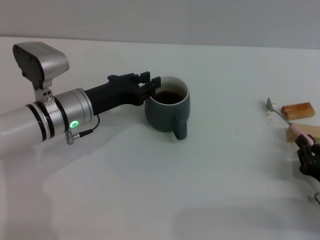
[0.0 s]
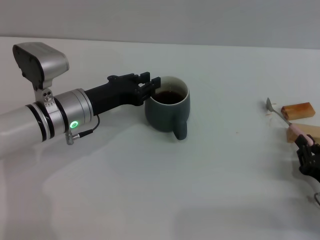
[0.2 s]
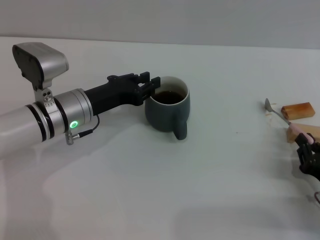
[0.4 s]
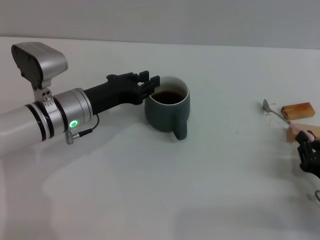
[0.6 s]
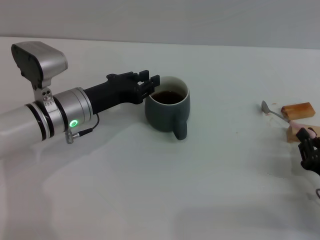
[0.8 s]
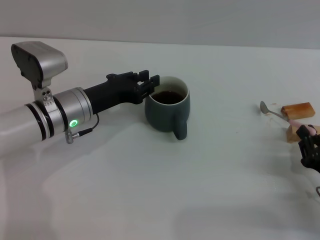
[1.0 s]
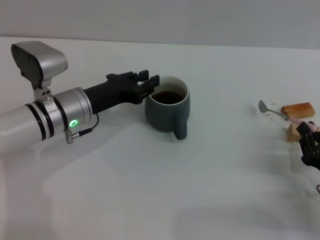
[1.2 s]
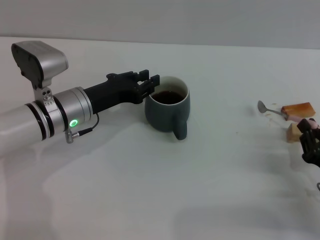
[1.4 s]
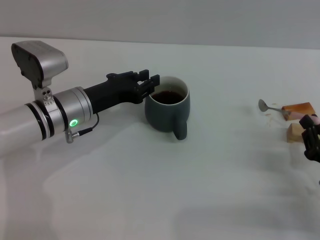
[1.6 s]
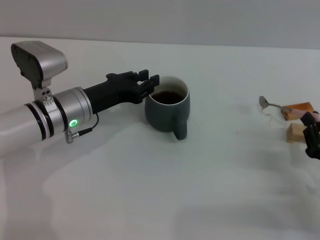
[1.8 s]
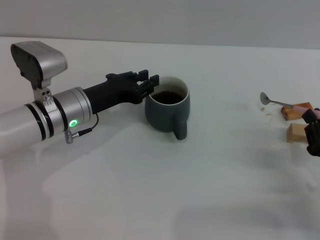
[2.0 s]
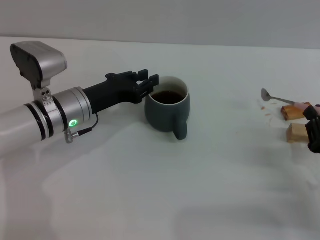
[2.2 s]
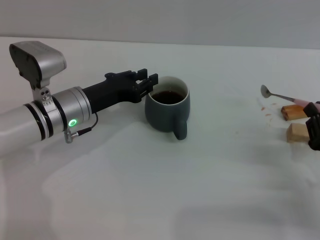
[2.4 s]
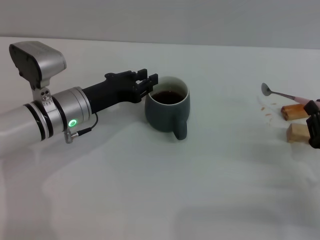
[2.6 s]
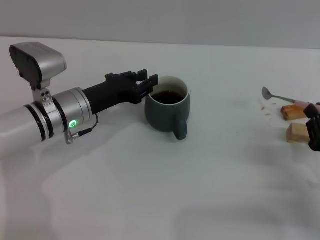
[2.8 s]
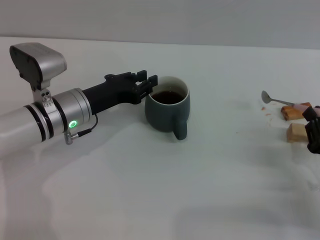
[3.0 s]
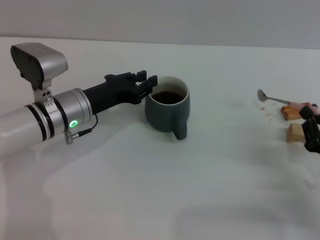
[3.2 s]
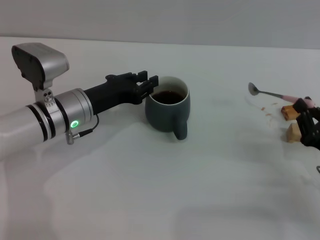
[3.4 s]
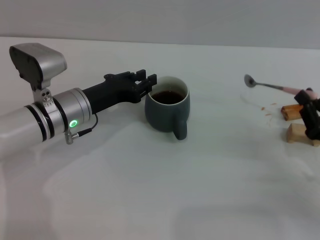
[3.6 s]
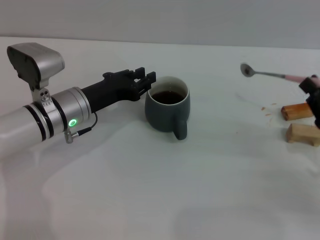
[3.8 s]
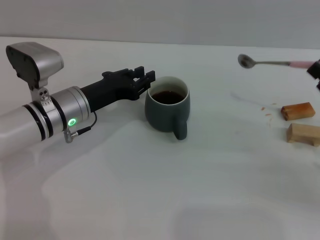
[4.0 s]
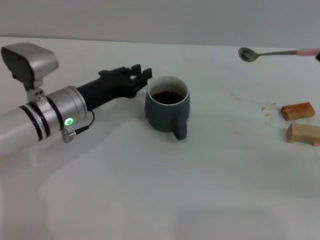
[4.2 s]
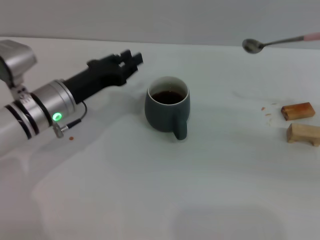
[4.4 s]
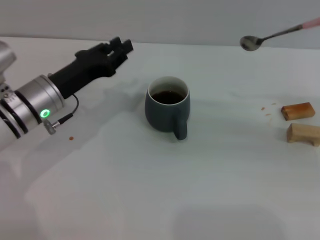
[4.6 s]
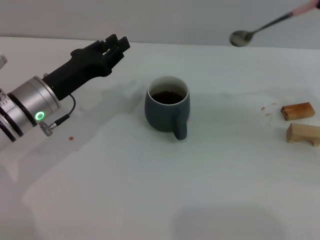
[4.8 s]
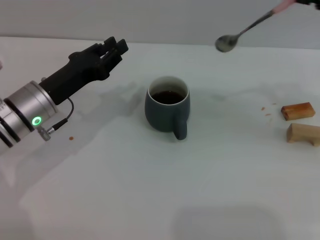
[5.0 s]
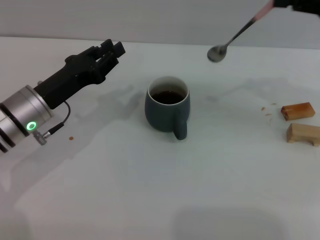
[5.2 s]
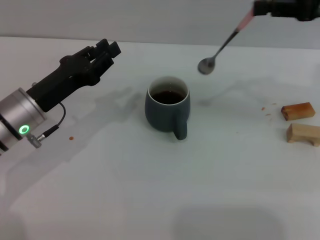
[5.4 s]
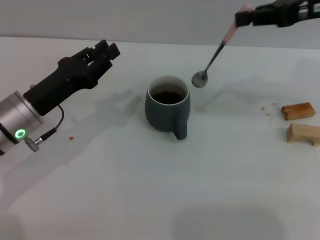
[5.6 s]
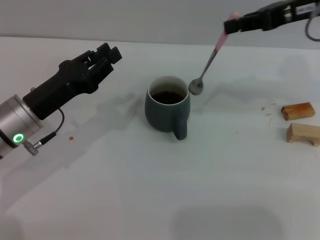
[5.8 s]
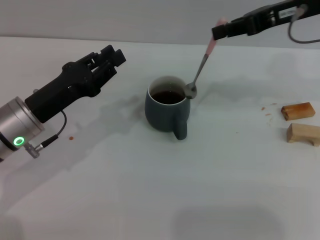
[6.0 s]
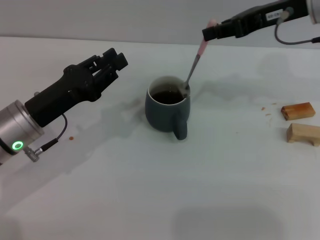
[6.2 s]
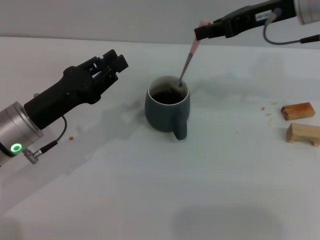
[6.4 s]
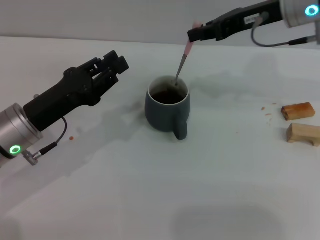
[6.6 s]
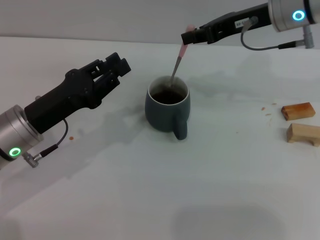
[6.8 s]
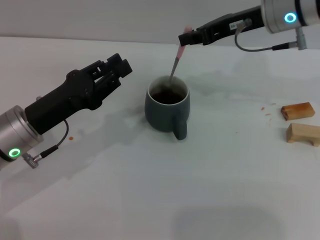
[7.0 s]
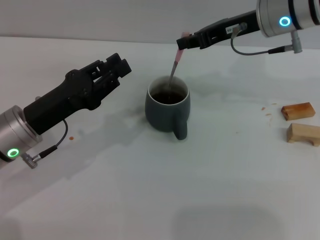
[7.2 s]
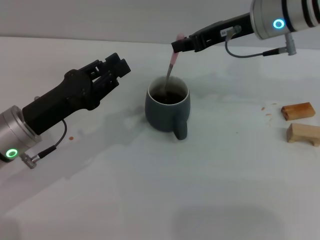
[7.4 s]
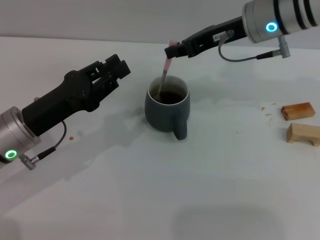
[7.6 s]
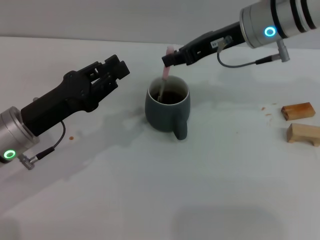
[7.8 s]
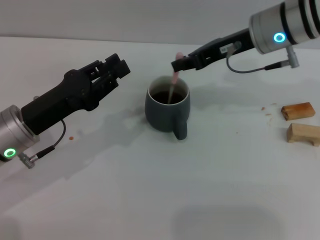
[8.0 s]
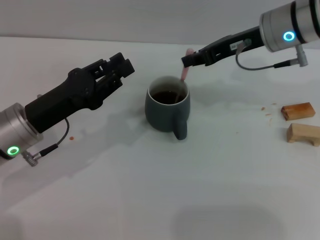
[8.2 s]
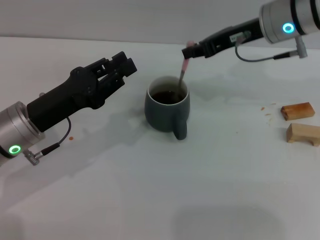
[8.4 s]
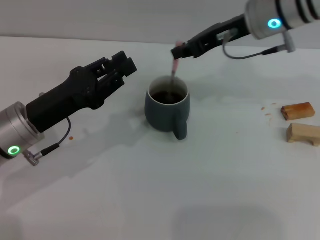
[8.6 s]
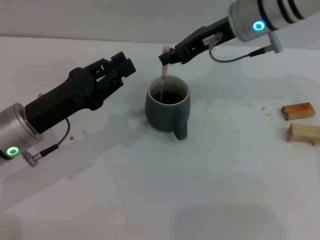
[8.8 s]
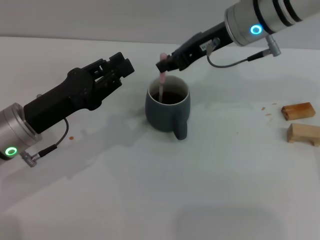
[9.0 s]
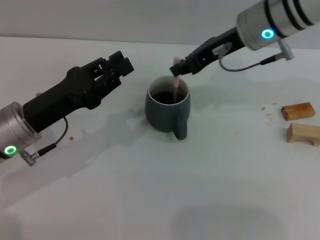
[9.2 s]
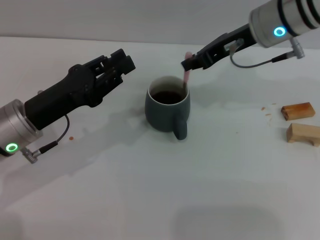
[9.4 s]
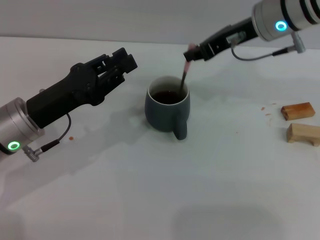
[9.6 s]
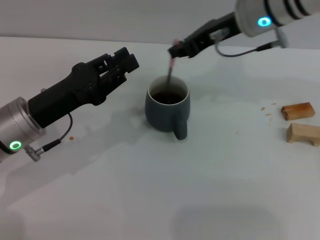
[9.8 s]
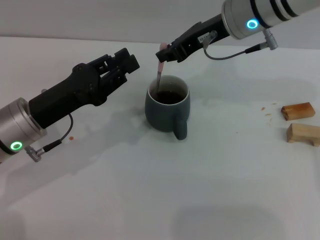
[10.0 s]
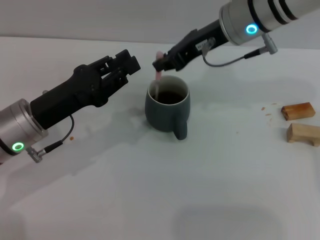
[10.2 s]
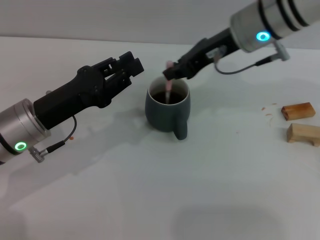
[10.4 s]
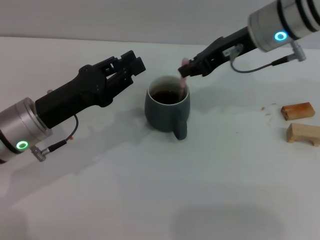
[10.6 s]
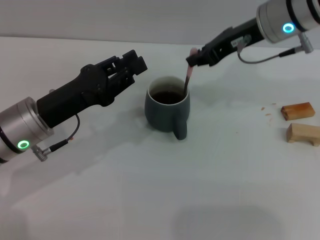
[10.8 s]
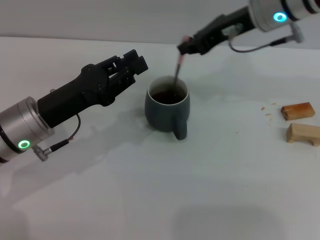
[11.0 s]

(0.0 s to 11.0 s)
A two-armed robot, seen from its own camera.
Task of the whole recording: Move the grey cup to the center, lift the pink spoon, stir it three times in the cup, and put the spoon into the cup.
Step, 0.0 s - 3.6 s: Pick up the spoon with the right gripper.
0.0 s - 3.2 s: The grippers move only a little.
3.2 s - 4.8 s: The right gripper heads upward and forward, covering approximately 25 cm.
4.8 s - 6.2 s: The right gripper goes roughly 15 cm to the left and forward.
6.2 s - 7.8 s: The right gripper moves to the left, approximately 5 cm.
7.8 s - 11.0 s: The grippers stay close to where they were, moving slightly.

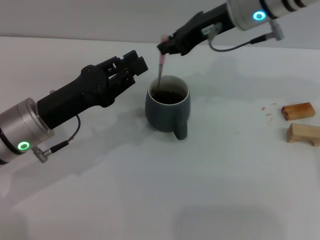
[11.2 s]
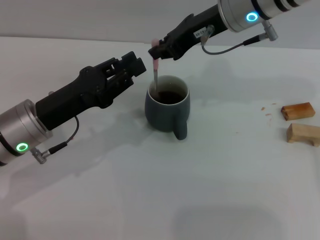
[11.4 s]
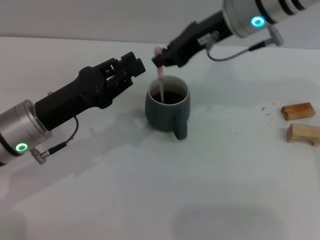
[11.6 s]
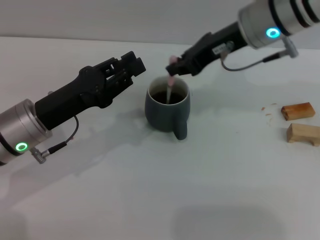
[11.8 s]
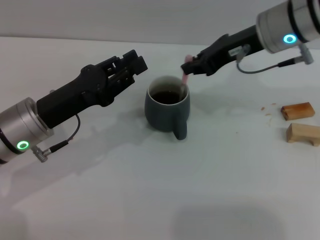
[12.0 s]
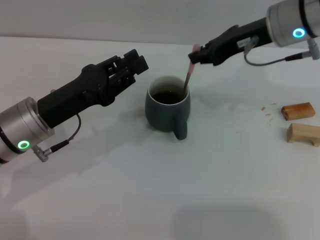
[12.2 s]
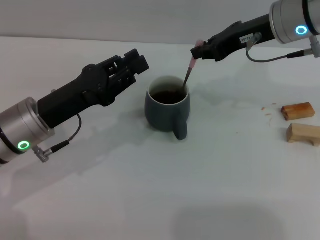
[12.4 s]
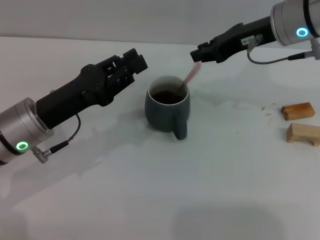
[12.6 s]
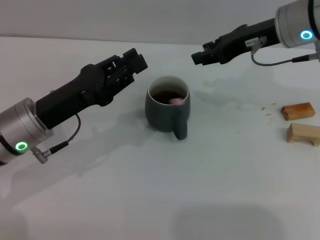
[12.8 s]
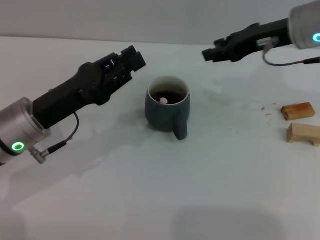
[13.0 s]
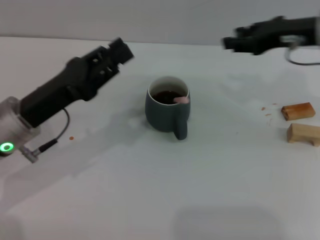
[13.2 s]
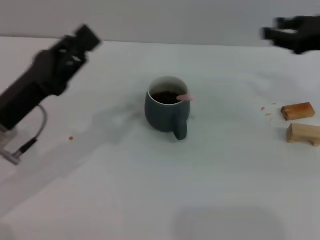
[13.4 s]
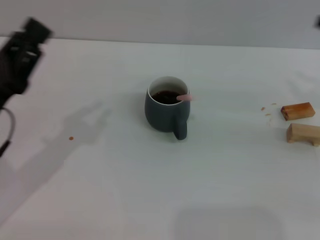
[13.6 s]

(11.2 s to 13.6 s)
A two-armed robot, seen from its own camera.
Task of the whole recording: Move the grey cup to the center, lift the pink spoon, stir it three times in the cup, and put the spoon into the cup.
11.2 s - 12.4 s: The right gripper goes approximately 5 cm to the right.
12.4 s - 13.6 s: The right gripper goes approximately 20 cm to the right and backward, and opens. The left gripper heads to the left, covering roughly 5 cm.

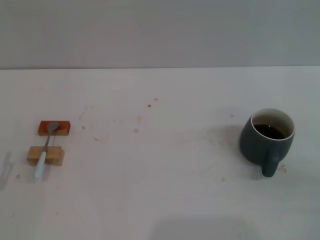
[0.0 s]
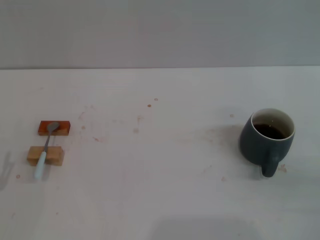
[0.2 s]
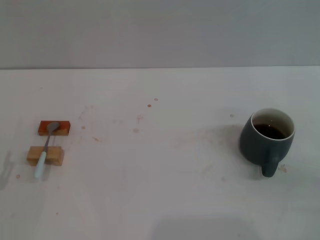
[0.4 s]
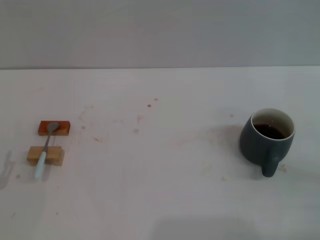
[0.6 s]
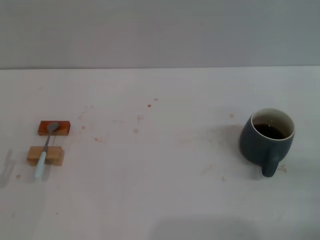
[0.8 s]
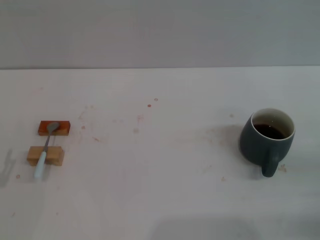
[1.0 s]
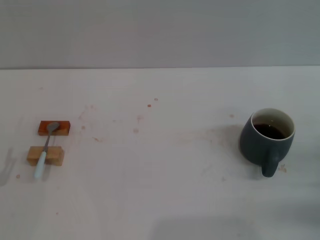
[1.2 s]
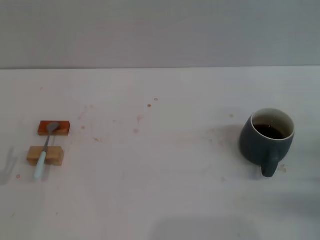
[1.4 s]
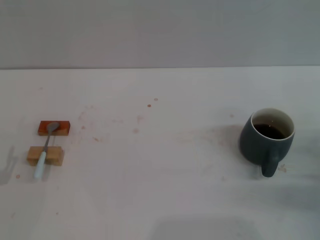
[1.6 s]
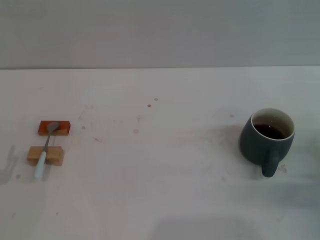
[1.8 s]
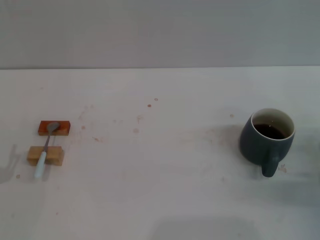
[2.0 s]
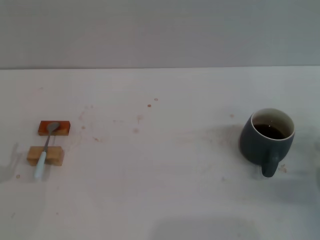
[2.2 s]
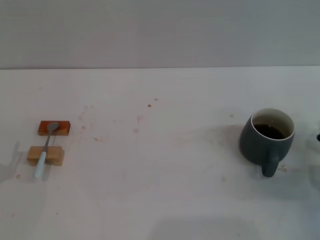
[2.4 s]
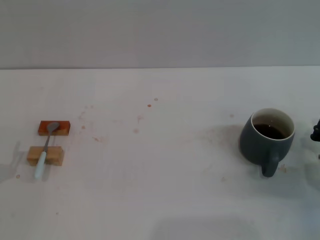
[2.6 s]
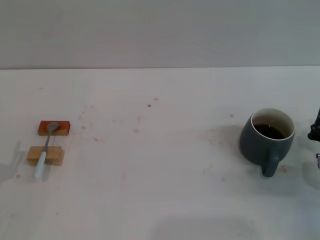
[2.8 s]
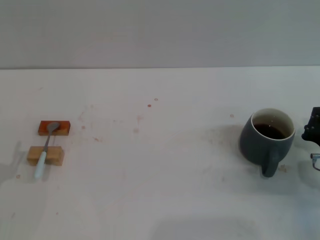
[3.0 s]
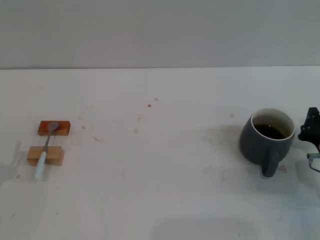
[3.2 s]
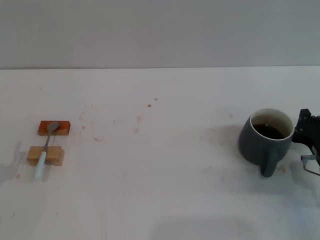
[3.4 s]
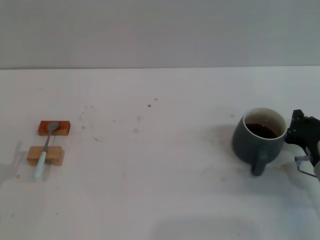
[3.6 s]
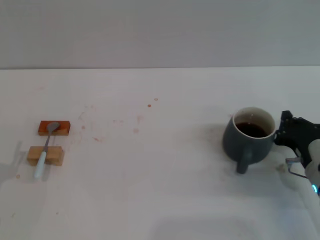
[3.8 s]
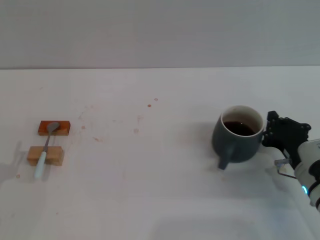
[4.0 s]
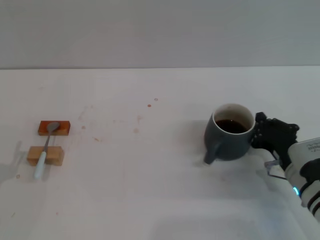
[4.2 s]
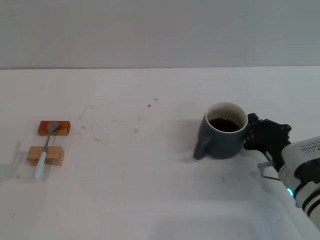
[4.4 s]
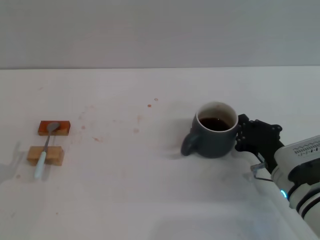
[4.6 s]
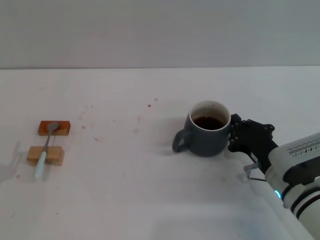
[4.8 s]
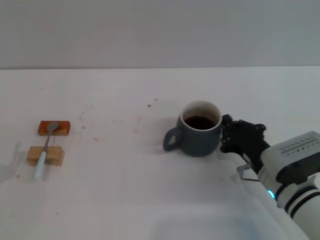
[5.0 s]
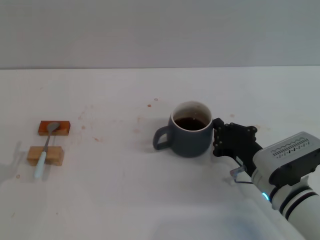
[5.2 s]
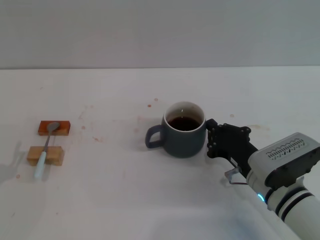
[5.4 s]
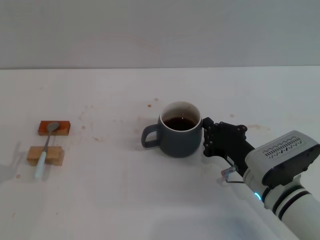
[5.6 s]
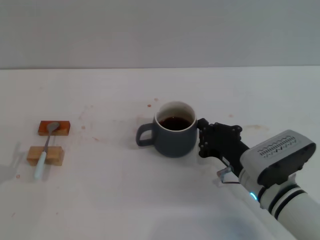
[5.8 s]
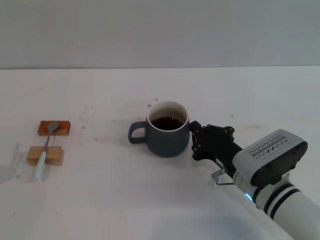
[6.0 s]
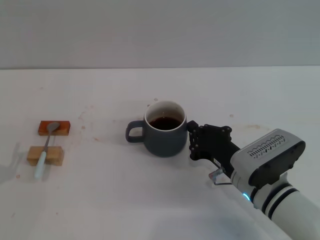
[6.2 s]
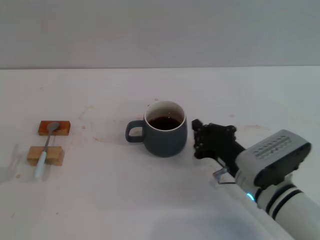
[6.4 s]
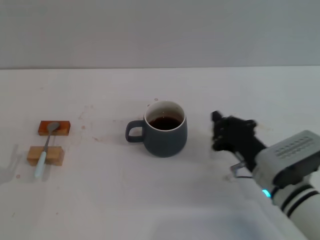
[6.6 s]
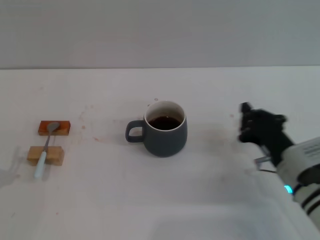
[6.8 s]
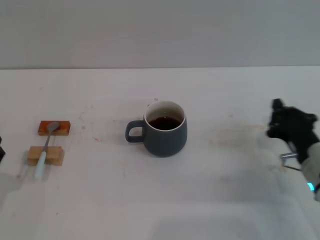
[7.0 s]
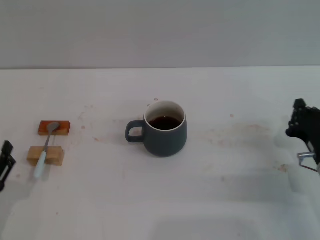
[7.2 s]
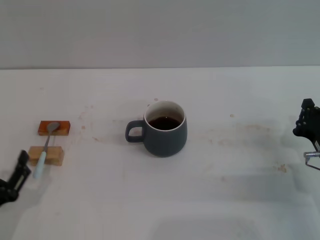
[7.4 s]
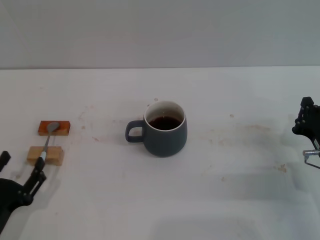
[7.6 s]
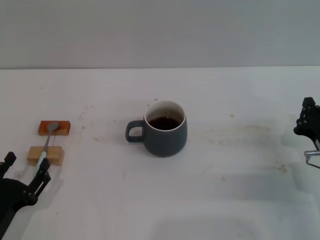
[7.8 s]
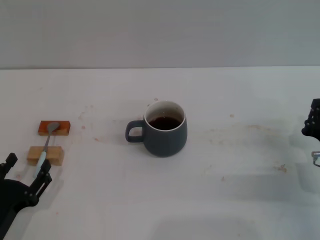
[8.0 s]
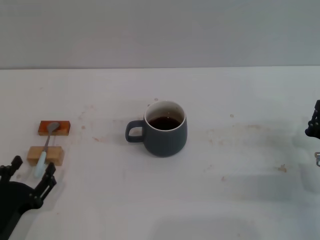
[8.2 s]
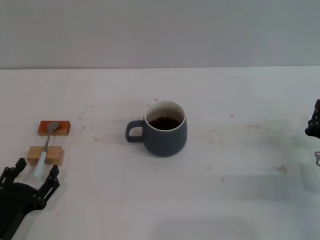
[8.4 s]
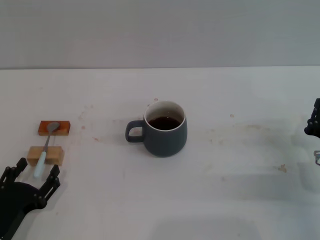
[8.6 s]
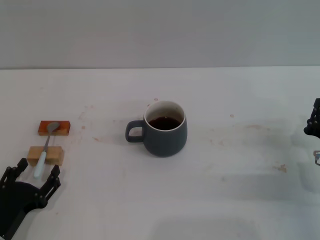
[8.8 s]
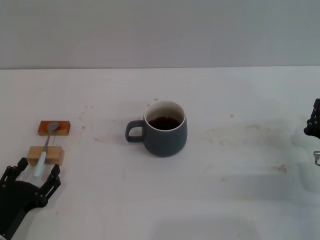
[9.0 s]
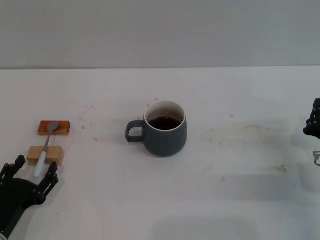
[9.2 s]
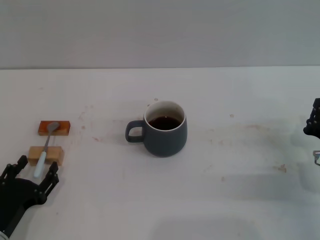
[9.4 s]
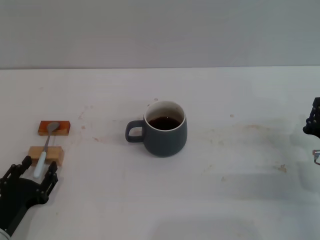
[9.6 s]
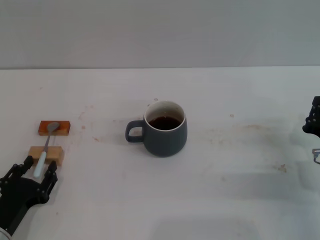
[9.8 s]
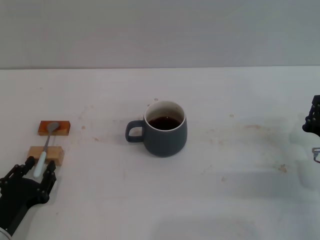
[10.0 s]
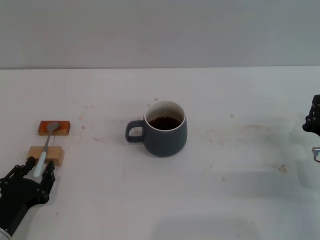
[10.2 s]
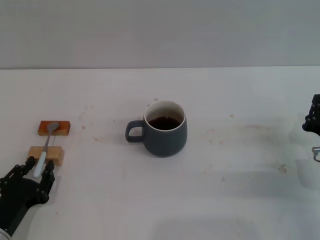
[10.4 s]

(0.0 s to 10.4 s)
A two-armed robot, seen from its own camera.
Task of the whole recording: Move the grey cup to the center, lift the blue spoon, stir it three times in the cup, and put the spoon into the cup.
Step, 0.0 s - 6.6 s: Move the cup with coffee to the center of view with the right gripper.
1.4 s - 3.0 s: The right gripper ends up approximately 5 cm from where it was.
3.0 s - 4.4 s: The right gripper shifts some 5 cm to the left.
4.4 s - 6.0 s: The right gripper moves to the left, about 5 cm.
6.0 s - 7.4 s: The left gripper ends up about 5 cm from where it was; the right gripper is displaced to the right by roughly 10 cm.
7.4 s - 9.0 s: The grippers make only small movements.
9.0 s - 10.4 s: The left gripper closes its fingers.
